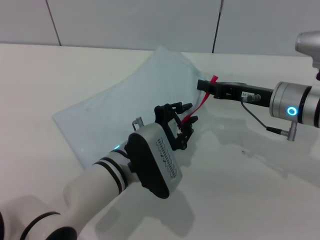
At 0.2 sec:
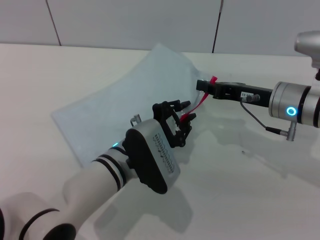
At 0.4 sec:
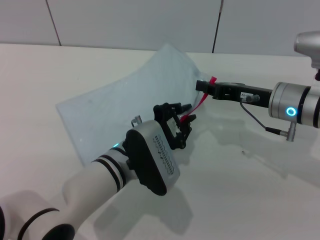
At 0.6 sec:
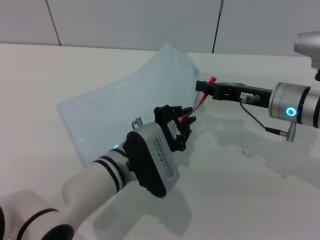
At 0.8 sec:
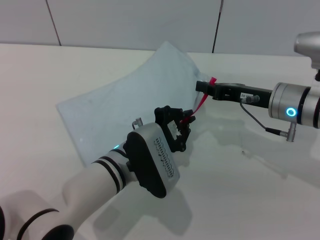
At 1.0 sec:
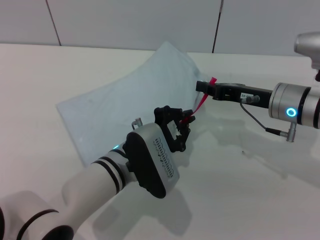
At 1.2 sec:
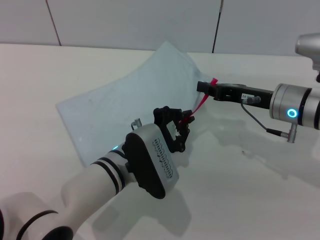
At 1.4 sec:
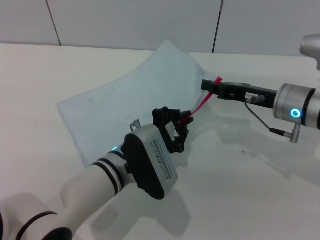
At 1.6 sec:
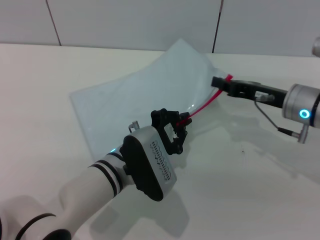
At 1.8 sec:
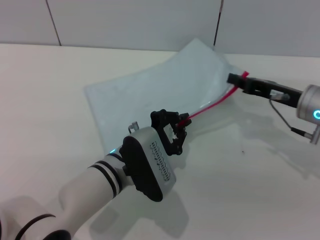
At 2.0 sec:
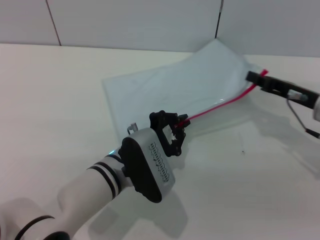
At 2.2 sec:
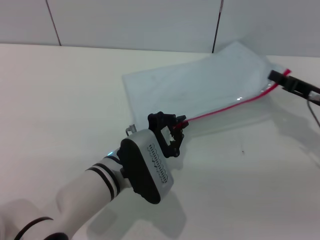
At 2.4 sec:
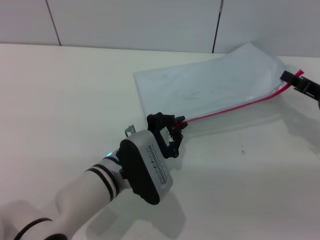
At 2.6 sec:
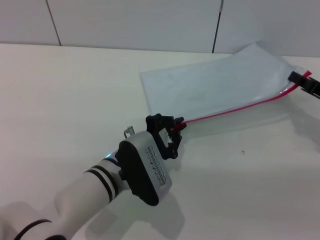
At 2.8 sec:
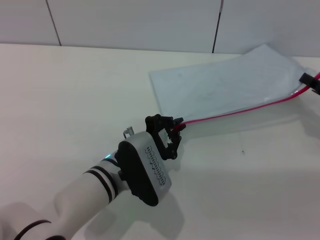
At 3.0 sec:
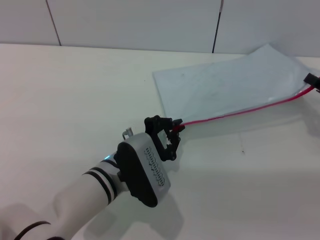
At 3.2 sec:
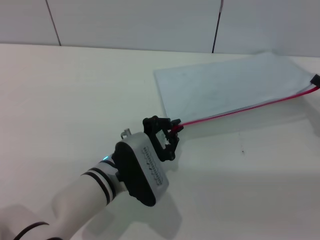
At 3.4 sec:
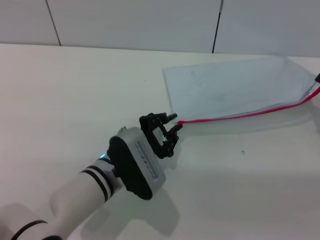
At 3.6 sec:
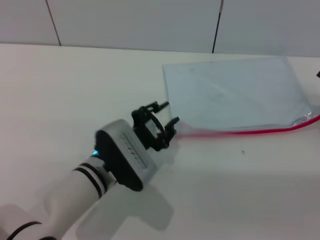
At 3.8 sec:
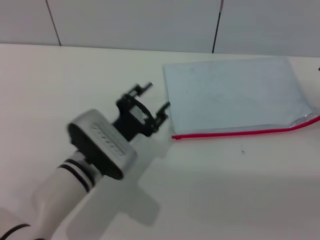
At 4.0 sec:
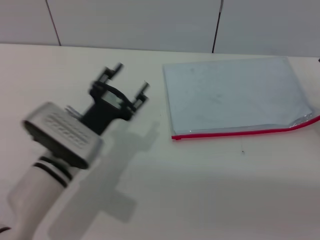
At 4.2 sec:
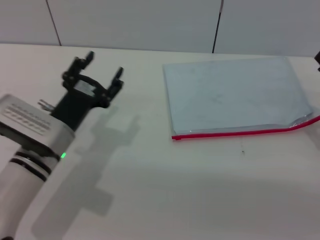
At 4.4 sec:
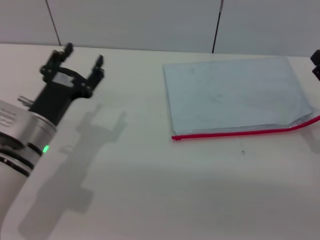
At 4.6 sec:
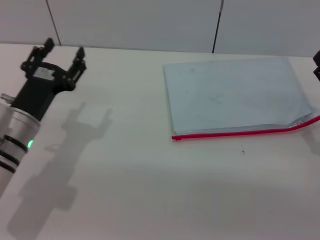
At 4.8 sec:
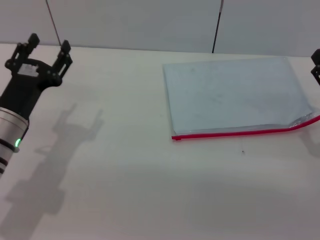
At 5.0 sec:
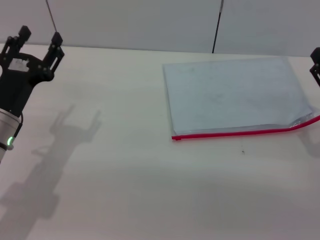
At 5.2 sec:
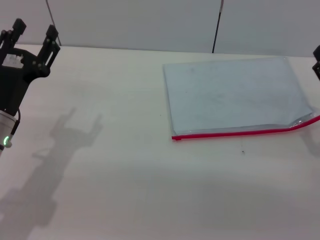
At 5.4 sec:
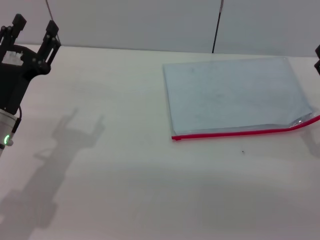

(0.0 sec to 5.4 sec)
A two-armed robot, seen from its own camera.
Step, 0.0 sec - 3.6 sec: Pulling up the zipper on the transparent plastic bag with the left gripper to close it.
Step, 3.8 sec - 4.4 sec: Place the transparent plastic bag.
0.0 sec - 1.4 sec: The two grippers keep their place.
1.4 sec - 2.8 sec: The right gripper heads to the right, covering about 15 cm.
2.8 sec - 4.0 sec: The right gripper opens up; the left gripper goes approximately 5 cm to the left, and opens its fingers.
4.0 sec - 5.4 sec: The right gripper ends up some 5 cm from where it was, while the left gripper travels to the left by roughly 10 cm.

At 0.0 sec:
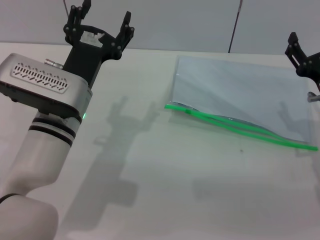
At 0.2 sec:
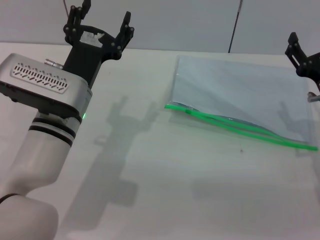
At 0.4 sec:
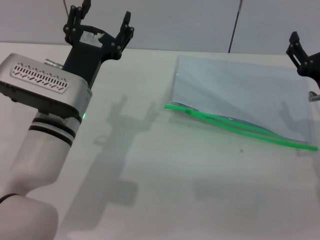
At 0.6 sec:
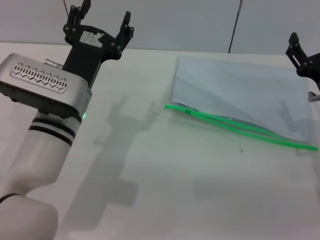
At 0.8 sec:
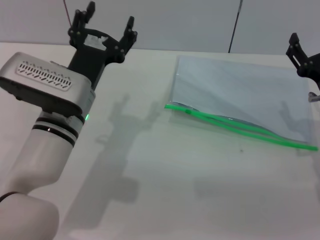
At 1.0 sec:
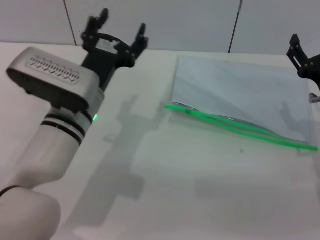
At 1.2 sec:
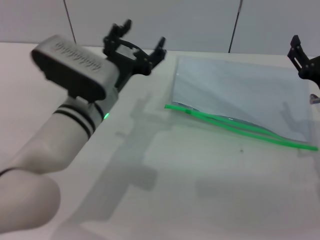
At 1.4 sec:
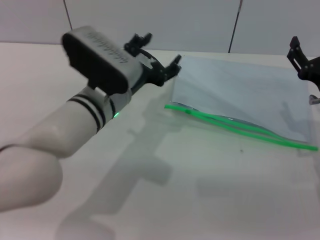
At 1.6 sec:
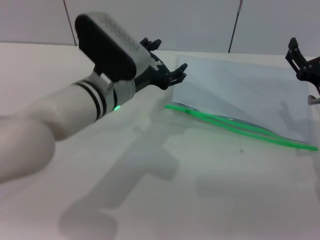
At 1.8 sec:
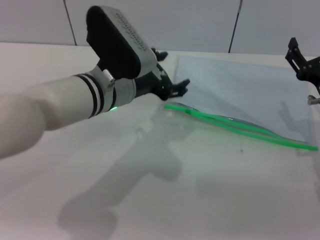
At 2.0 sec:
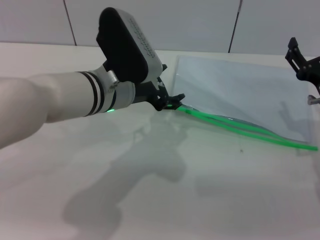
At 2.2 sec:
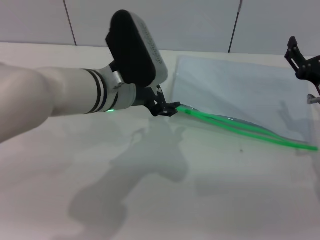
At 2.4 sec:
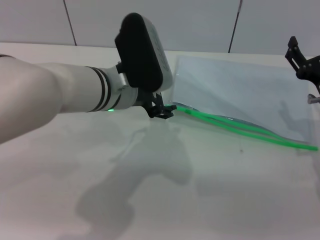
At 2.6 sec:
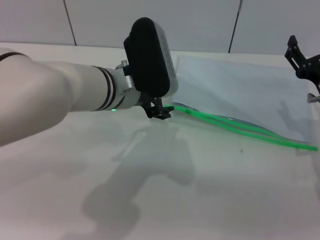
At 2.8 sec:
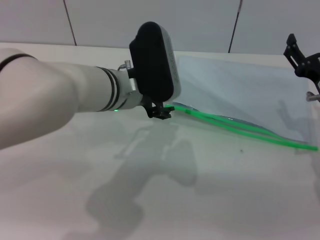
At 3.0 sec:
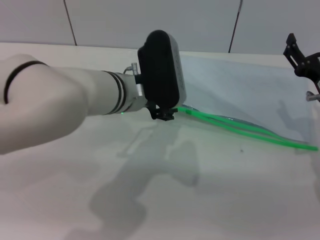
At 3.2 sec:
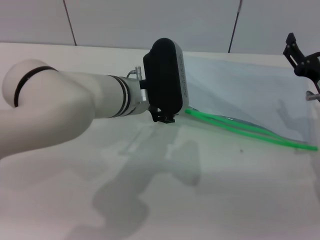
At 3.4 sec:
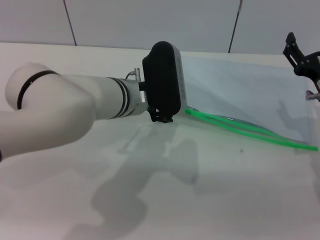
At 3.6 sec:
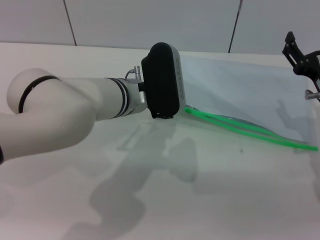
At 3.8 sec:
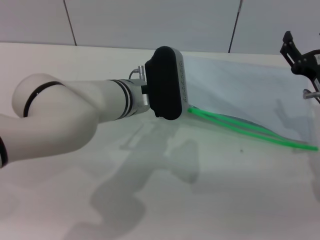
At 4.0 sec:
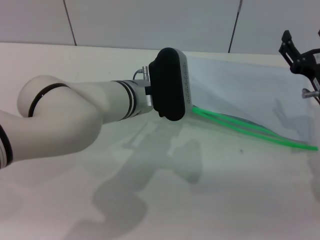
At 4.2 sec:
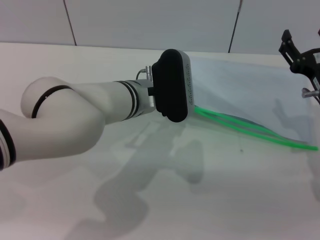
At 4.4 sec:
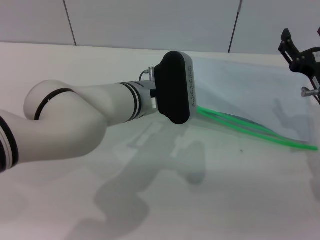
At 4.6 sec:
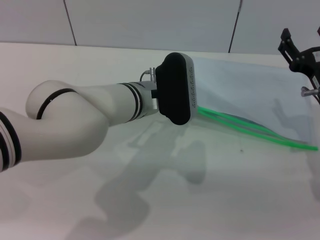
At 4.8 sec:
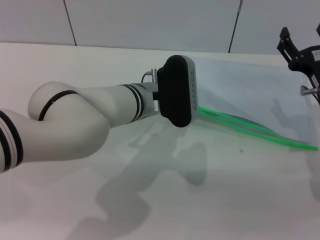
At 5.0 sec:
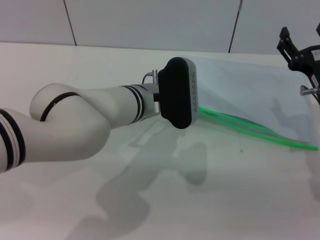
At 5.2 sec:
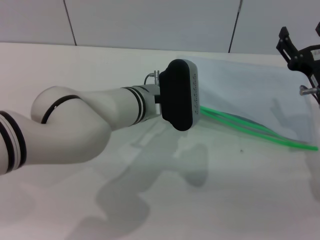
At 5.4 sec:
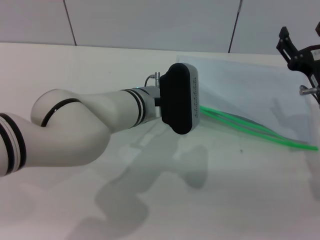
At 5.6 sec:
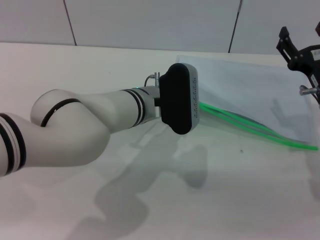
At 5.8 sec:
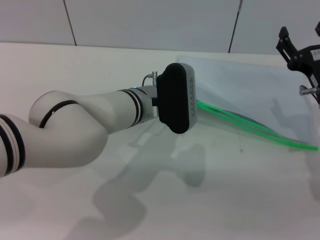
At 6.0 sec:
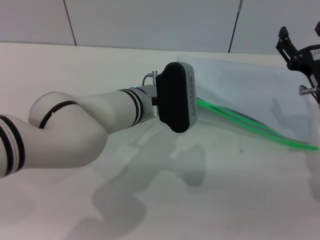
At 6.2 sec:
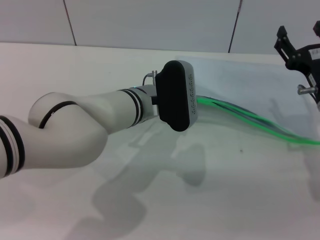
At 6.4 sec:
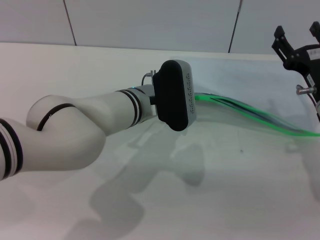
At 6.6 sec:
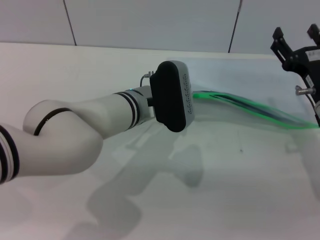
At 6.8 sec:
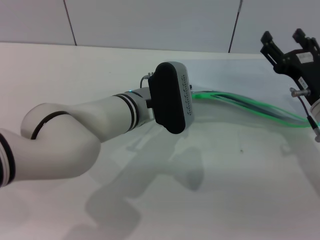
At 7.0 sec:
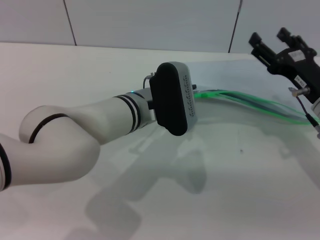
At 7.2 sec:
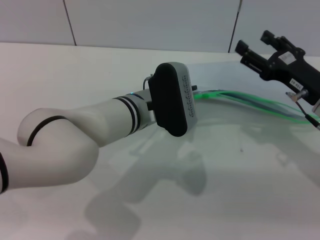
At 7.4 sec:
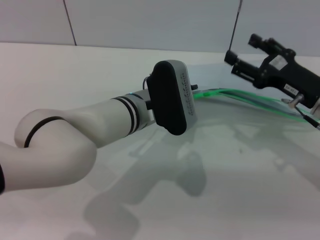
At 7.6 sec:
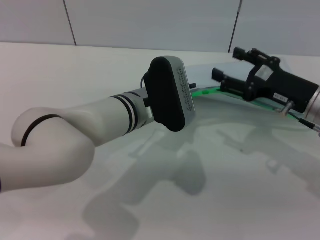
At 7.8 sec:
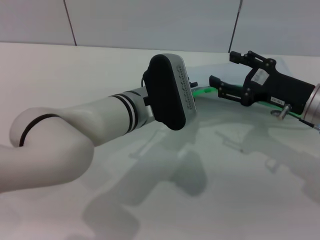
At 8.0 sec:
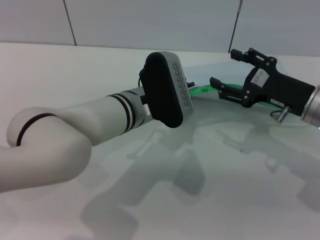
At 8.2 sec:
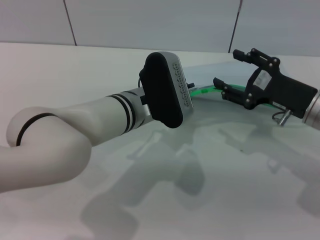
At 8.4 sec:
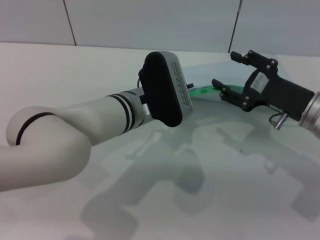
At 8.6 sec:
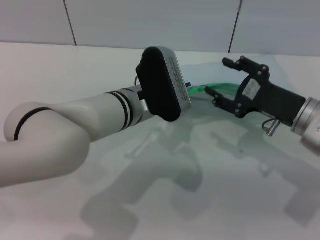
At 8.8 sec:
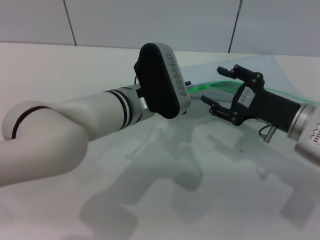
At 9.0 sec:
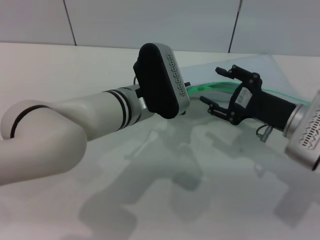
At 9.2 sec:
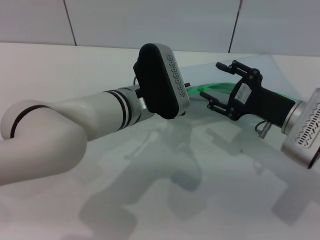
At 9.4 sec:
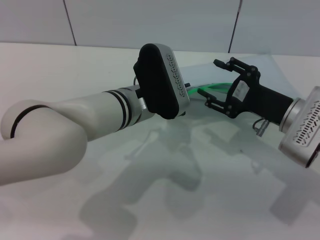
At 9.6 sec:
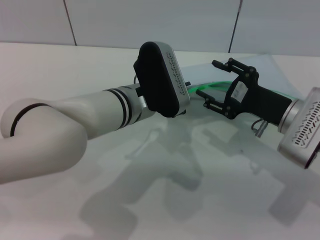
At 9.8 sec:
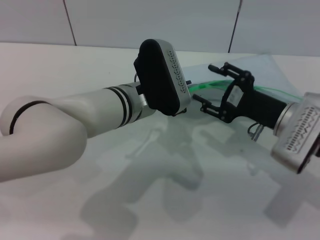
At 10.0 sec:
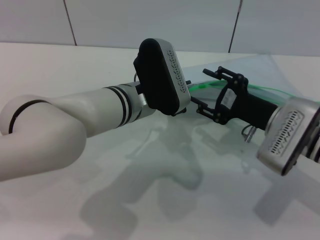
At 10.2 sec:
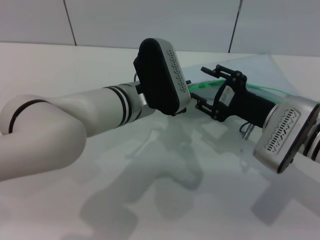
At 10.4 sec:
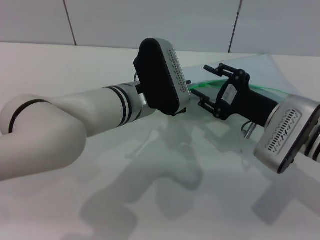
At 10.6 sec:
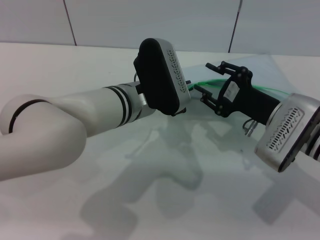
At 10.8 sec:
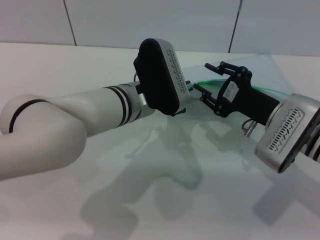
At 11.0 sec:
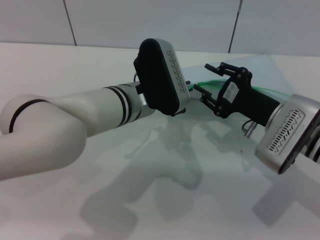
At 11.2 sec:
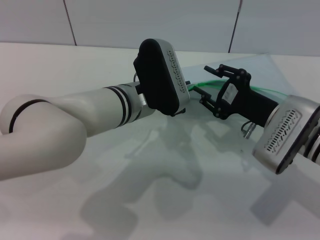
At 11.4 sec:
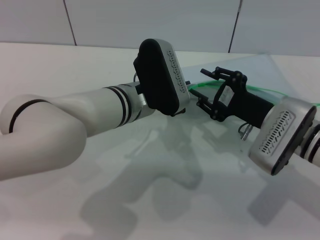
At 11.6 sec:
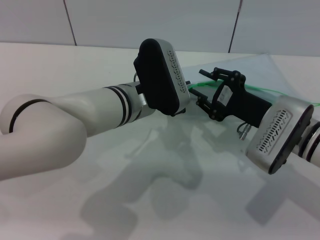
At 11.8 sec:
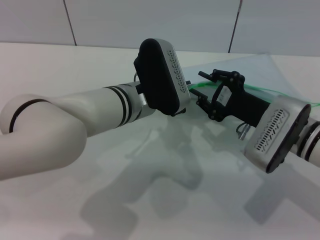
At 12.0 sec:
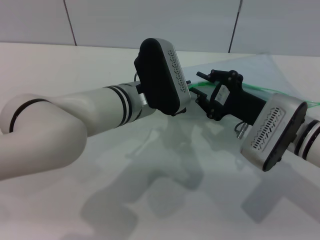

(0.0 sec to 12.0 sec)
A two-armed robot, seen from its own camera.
Step, 0.0 sec - 7.6 sec: Pick up the transparent plastic bag with the left gripper.
0.0 sec - 1.6 sec: The left gripper moves approximately 5 cm.
3.0 sec - 4.4 sec: There are only small adjustments of the grippers.
4.4 sec - 6.0 sec: The left gripper closes its fingers.
6.0 sec - 7.6 sec: The left gripper closes.
9.0 sec - 10.4 sec: There are only small adjustments of the grippers.
10.4 sec - 12.0 sec: Both grippers stay put.

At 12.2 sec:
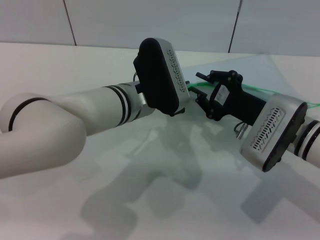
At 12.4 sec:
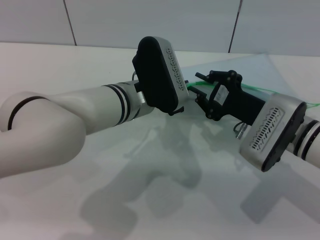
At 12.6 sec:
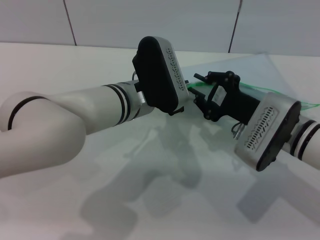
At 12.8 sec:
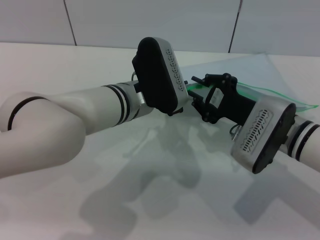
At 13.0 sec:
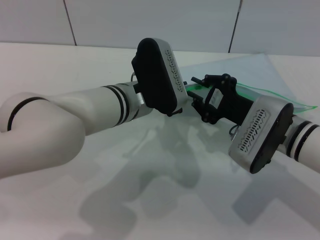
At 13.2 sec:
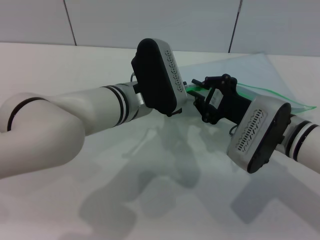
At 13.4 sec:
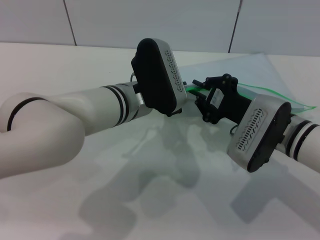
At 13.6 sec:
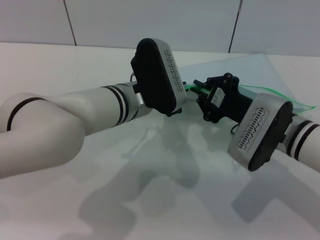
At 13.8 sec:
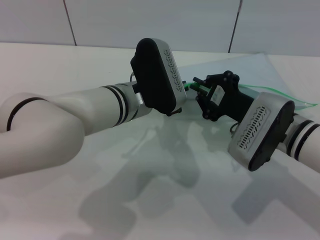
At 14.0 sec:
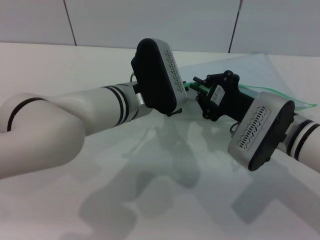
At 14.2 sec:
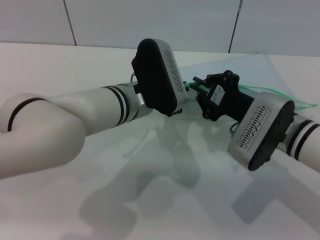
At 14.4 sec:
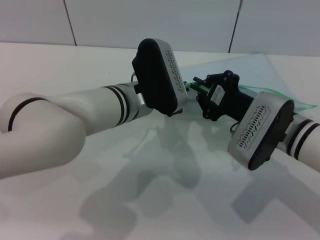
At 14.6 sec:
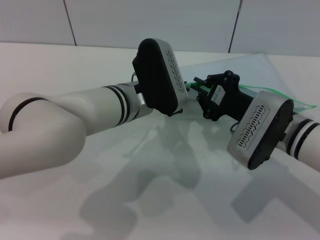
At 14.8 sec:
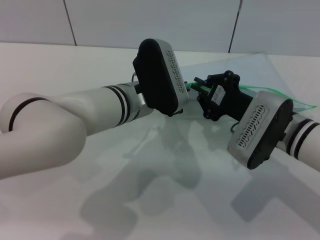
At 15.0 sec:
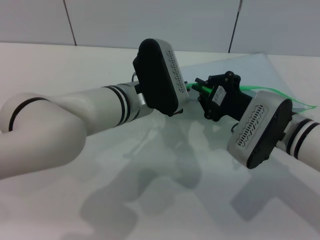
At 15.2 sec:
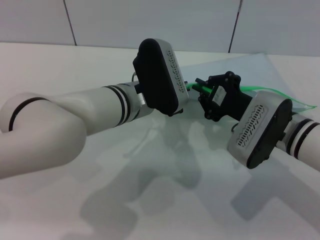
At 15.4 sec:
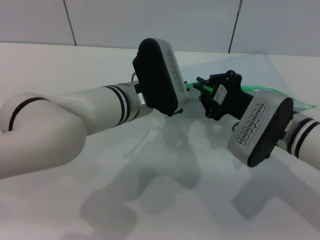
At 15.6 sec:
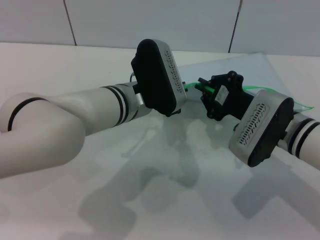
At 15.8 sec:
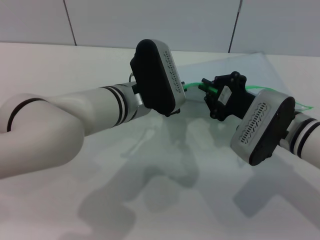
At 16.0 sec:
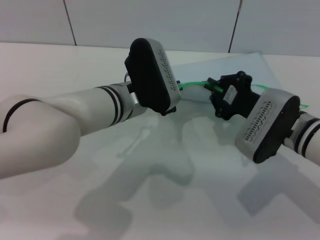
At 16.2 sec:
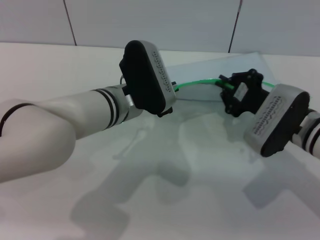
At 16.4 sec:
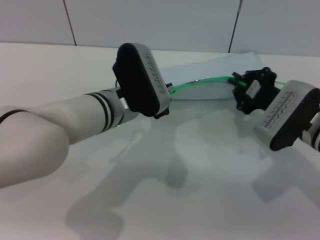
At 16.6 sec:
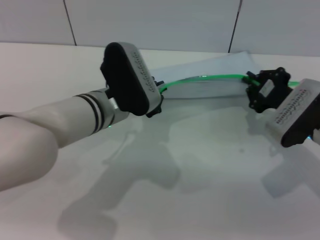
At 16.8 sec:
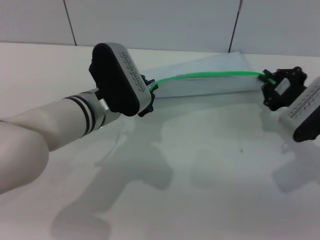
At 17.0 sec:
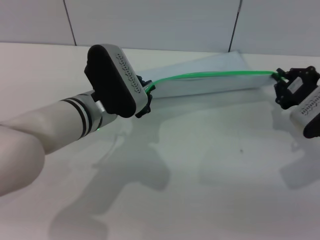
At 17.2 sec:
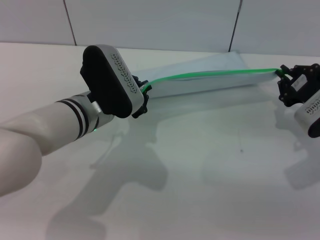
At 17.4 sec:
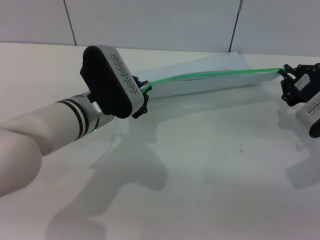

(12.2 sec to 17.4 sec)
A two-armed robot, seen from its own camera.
12.2 sec - 14.0 sec: The grippers stay close to where they were, moving slightly.
14.0 sec - 15.6 sec: Both grippers stay put.
15.6 sec - 17.4 sec: The right gripper travels to the right by some 10 cm; the left gripper shifts some 5 cm to the left.
